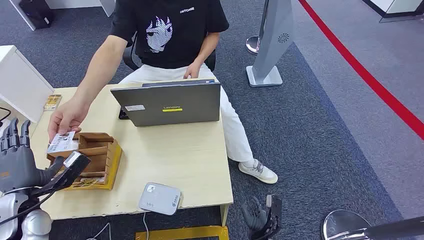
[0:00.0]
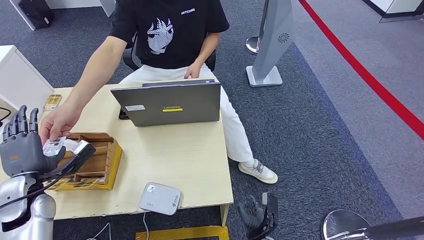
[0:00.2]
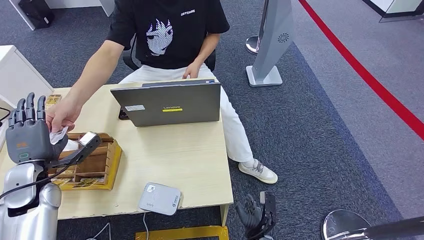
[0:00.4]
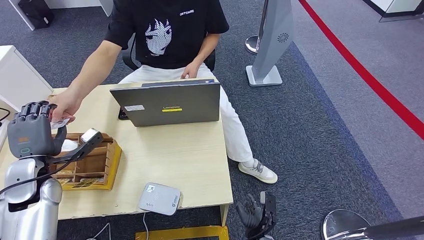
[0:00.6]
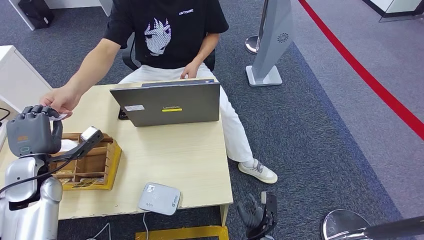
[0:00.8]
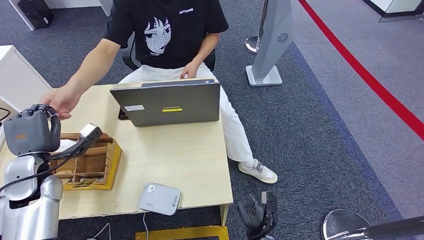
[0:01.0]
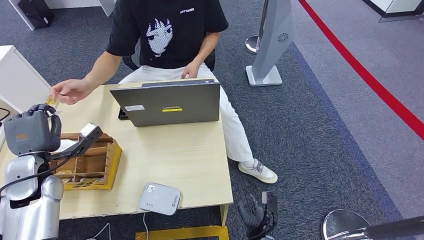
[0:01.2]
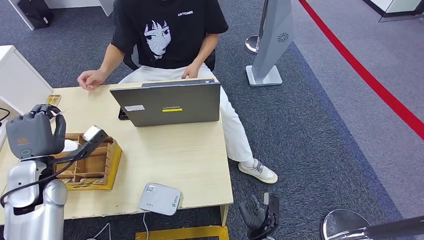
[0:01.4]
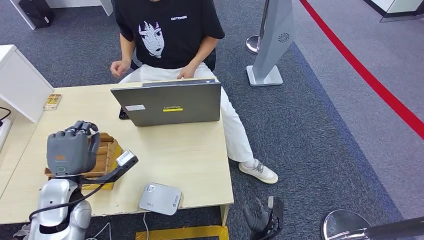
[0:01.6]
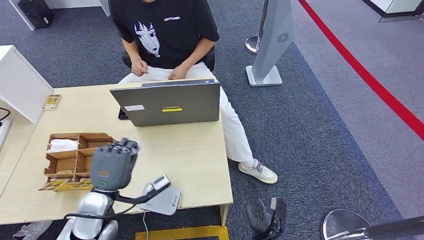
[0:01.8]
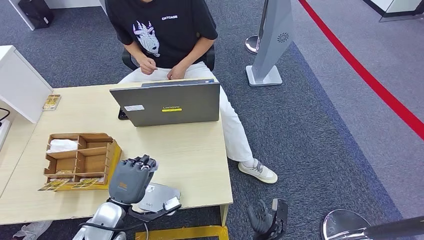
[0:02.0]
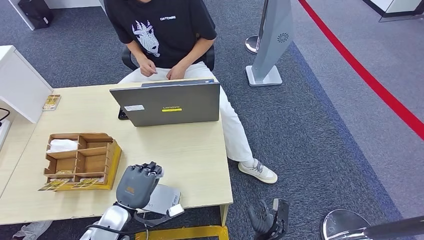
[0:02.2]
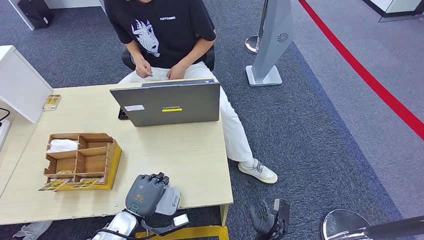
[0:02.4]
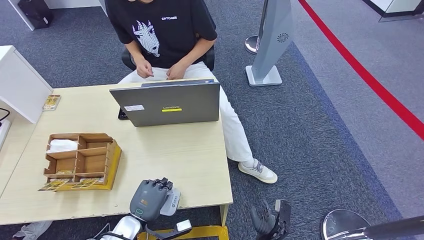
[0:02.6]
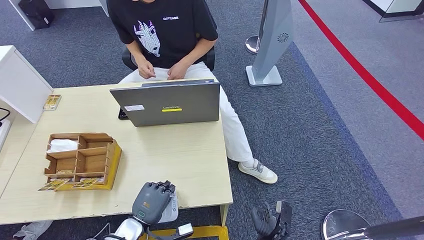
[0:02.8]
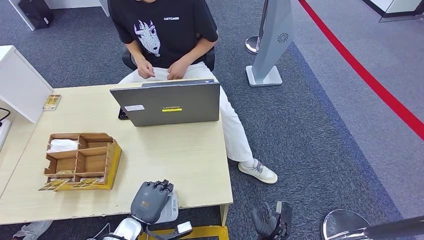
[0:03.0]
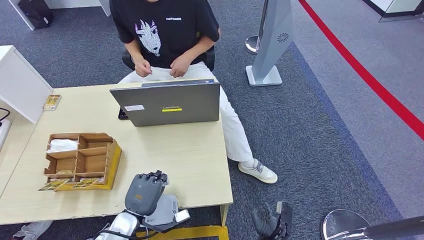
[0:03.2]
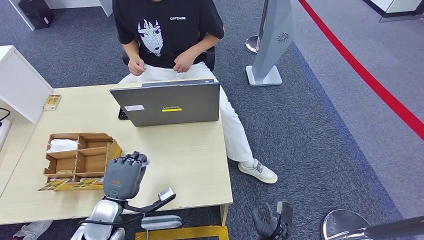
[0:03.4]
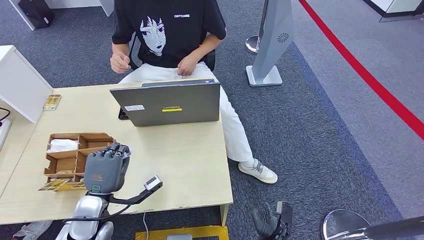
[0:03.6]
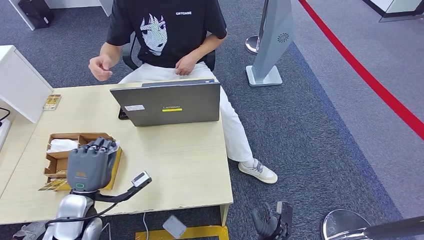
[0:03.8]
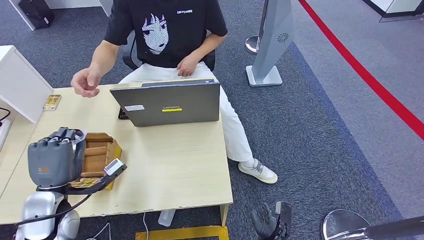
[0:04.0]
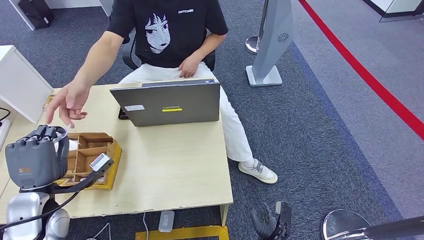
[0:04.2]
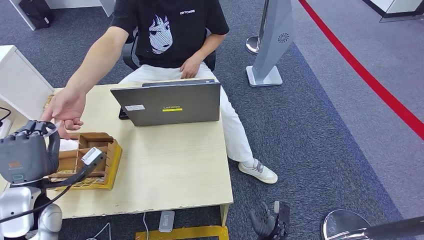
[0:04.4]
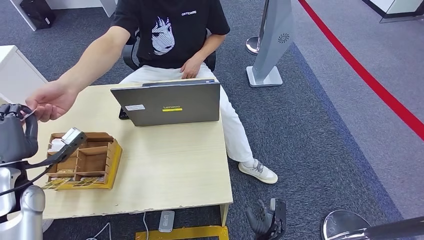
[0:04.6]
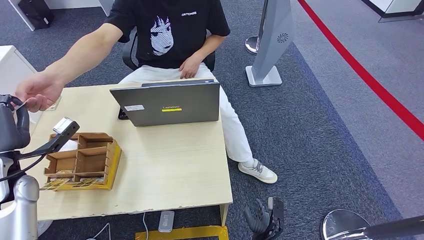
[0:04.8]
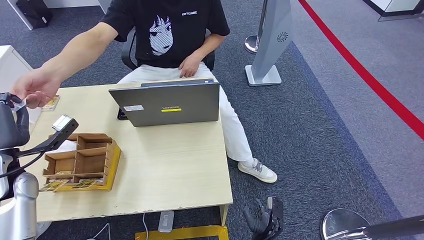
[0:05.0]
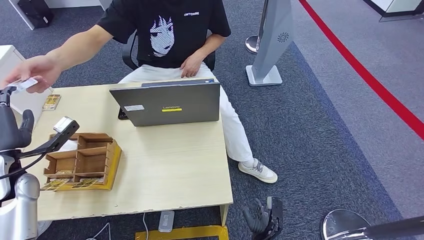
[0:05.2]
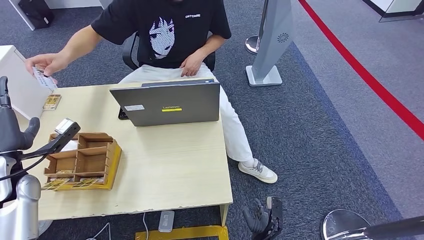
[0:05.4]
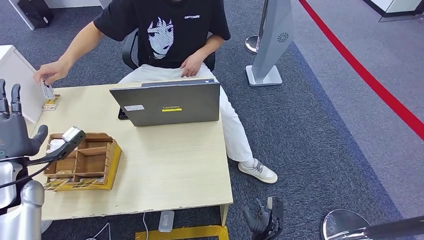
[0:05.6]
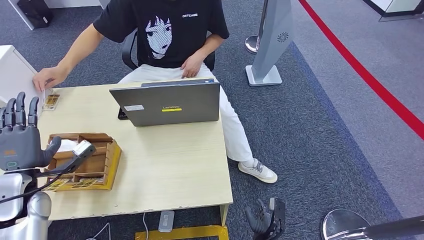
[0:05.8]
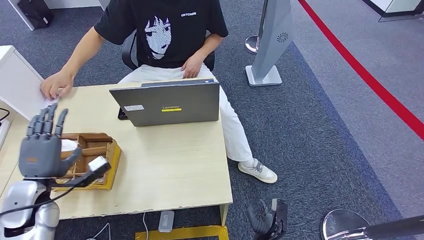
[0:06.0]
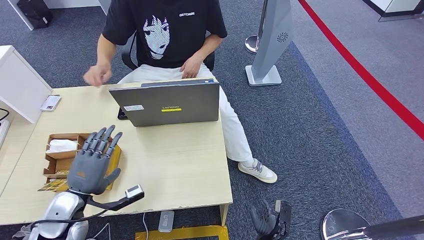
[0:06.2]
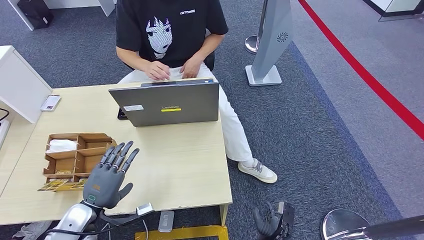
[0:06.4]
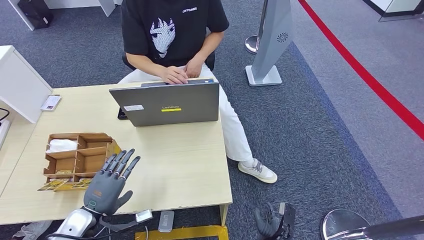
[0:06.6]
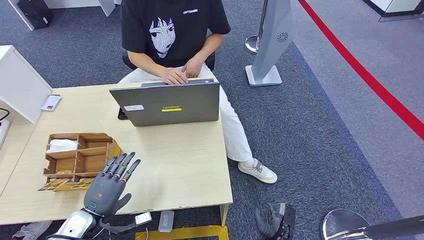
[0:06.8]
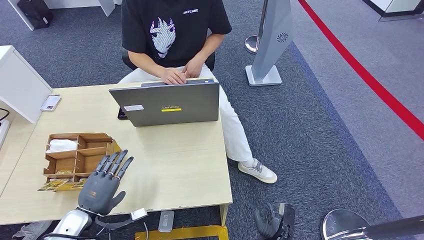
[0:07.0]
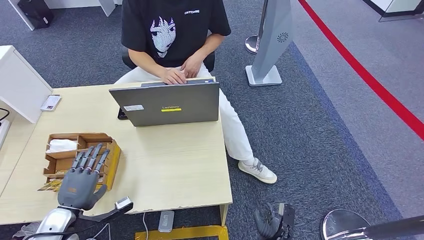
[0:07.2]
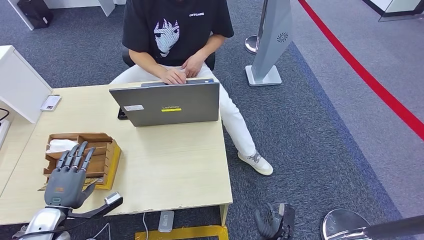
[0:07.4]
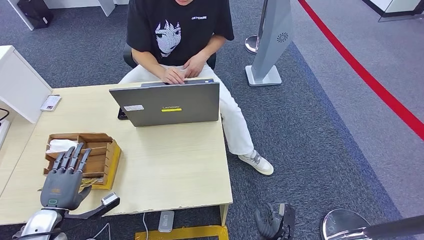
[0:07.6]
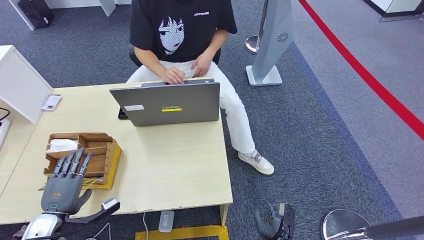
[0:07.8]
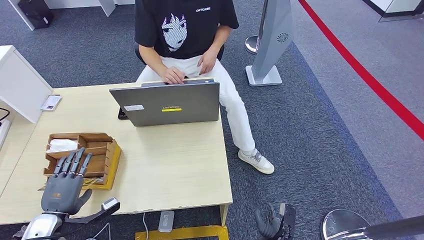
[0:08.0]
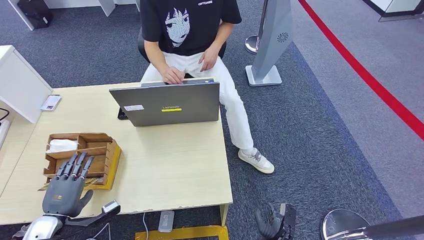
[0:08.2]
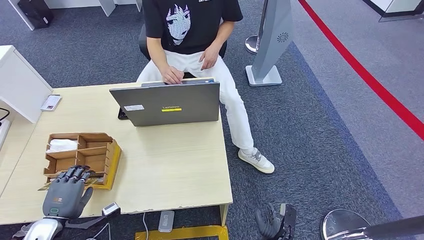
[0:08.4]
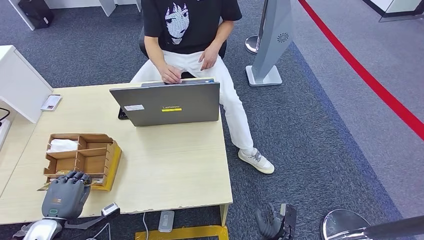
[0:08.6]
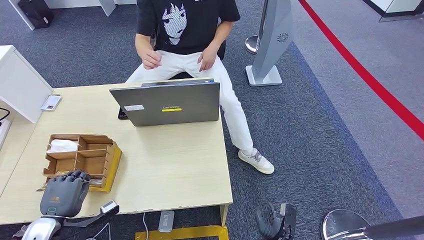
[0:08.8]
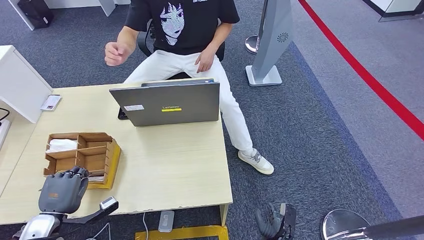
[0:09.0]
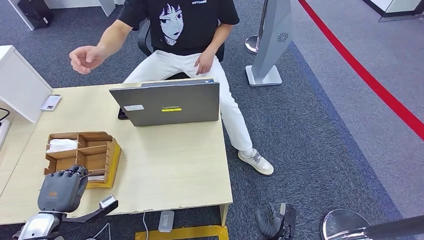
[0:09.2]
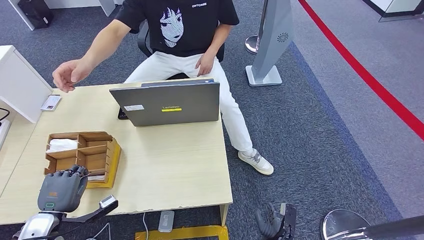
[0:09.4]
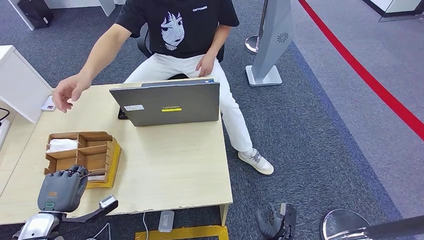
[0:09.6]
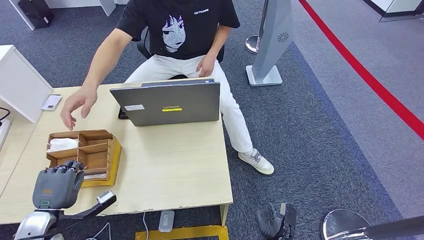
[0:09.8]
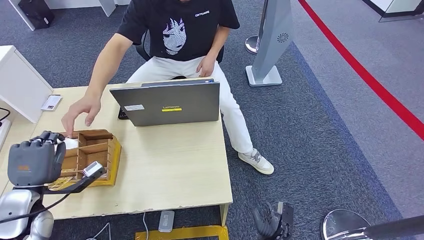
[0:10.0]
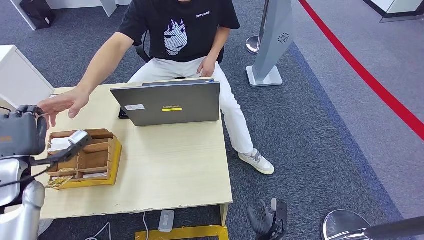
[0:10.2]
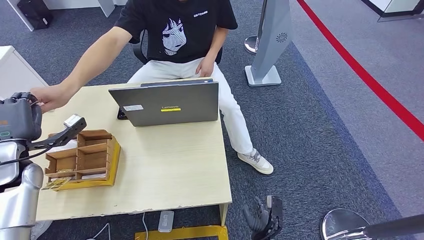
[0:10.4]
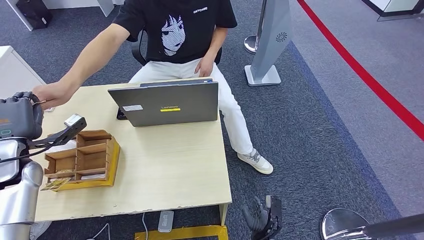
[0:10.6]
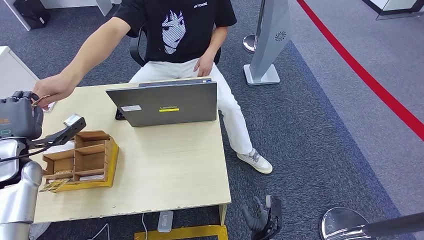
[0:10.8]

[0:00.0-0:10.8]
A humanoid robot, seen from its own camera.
Step, 0:00.0 to 0:01.4: Take the ID card from the person's hand.
Step, 0:01.6 to 0:04.4: Place the ID card on the card reader.
Step, 0:04.6 to 0:07.0: Hand the ID card to the person.
Step, 0:07.2 to 0:10.2: Pick up the room key from the key card box.
0:01.6 to 0:03.0: The left hand heads downward, to the right and backward, covering some 20 cm.
0:03.0 to 0:04.6: The left hand goes roughly 30 cm upward, to the left and forward.
0:04.6 to 0:06.2: The left hand moves downward and to the right, some 10 cm.
0:06.2 to 0:07.8: The left hand travels to the left and downward by some 10 cm.
0:07.8 to 0:09.2: The two hands keep their place.

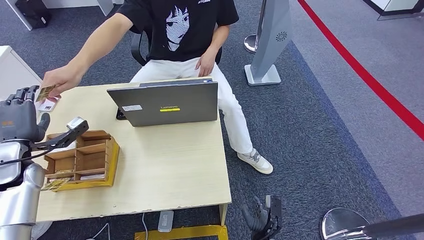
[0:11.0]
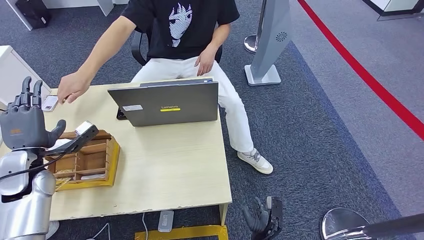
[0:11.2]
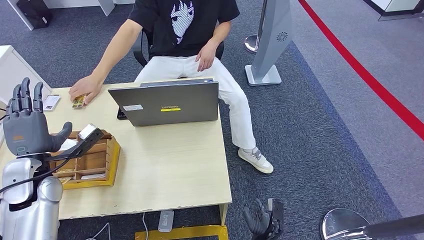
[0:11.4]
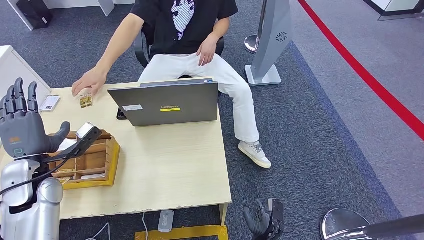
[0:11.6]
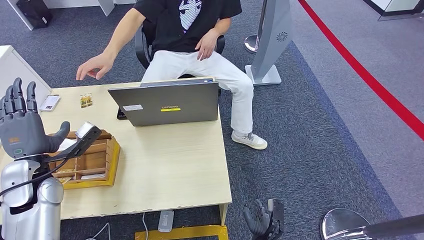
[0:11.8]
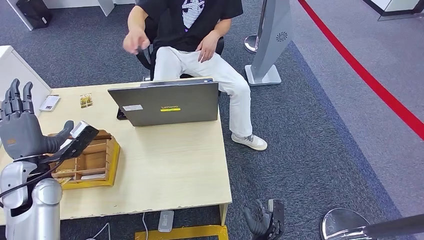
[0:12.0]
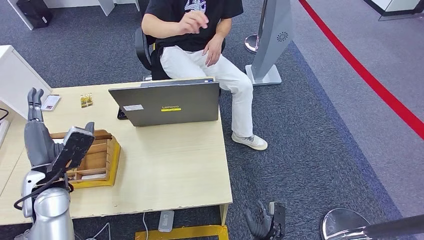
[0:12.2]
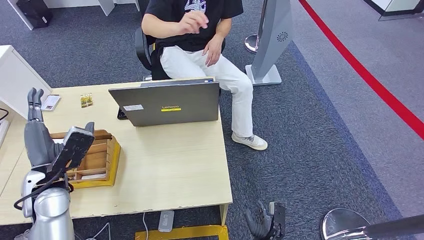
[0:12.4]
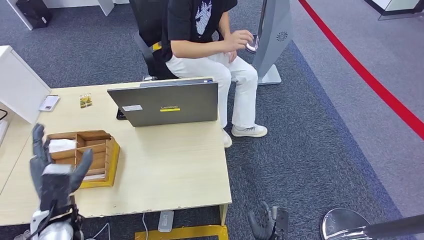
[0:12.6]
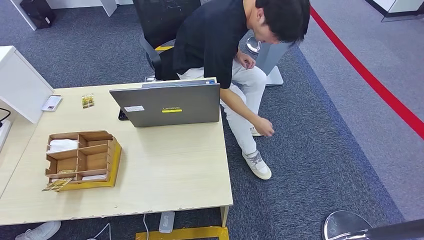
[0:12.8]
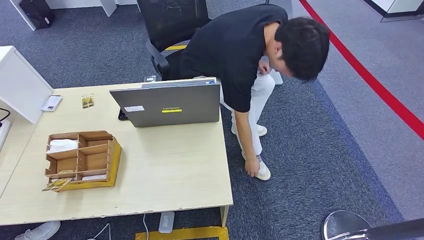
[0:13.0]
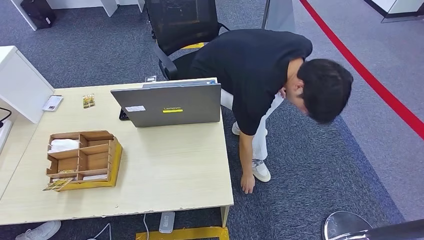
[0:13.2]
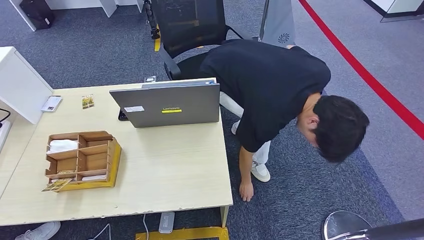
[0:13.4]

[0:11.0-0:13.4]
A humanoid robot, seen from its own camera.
Step, 0:11.0 to 0:13.4: Hand the room key to the person.
